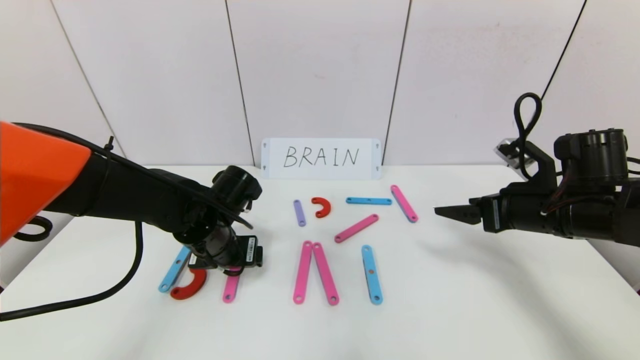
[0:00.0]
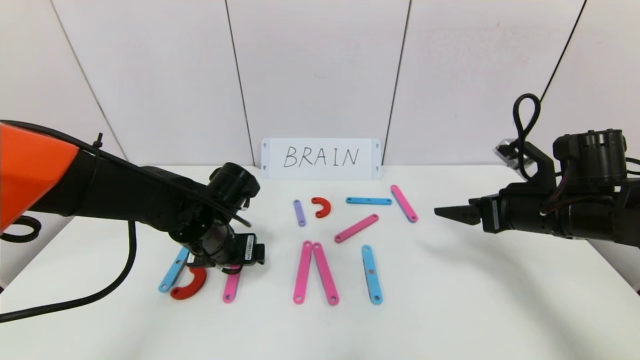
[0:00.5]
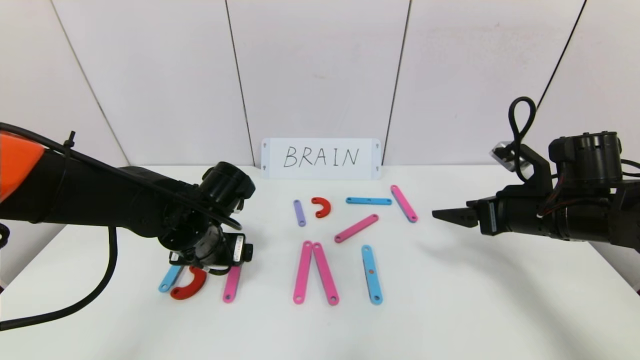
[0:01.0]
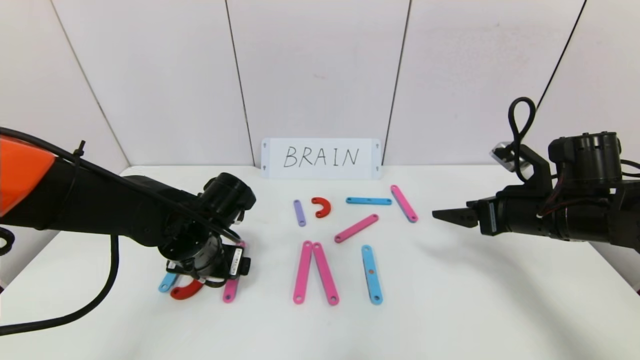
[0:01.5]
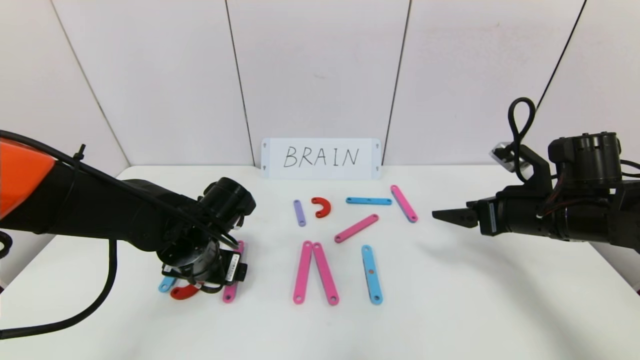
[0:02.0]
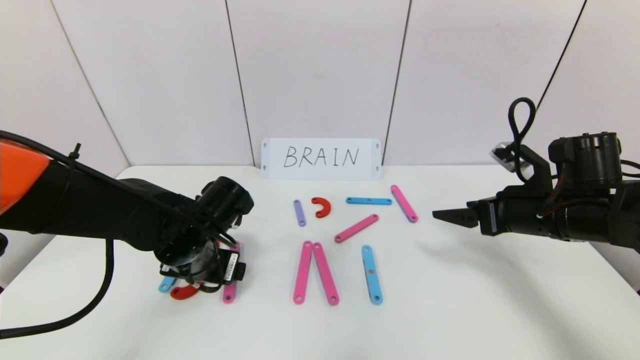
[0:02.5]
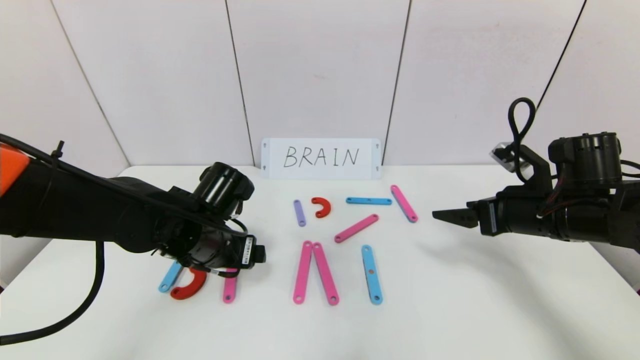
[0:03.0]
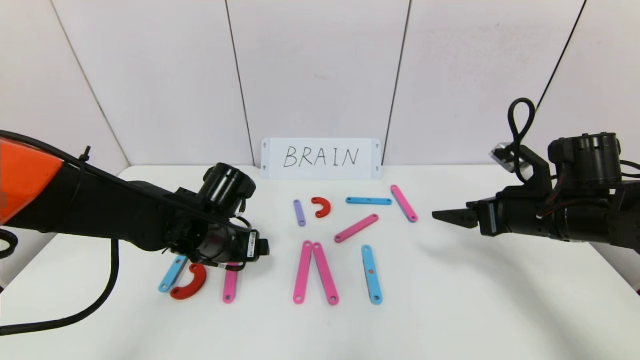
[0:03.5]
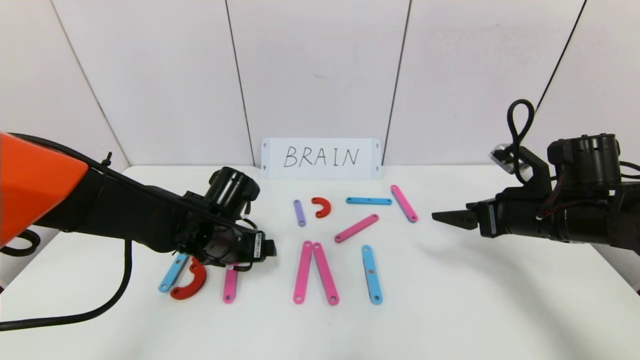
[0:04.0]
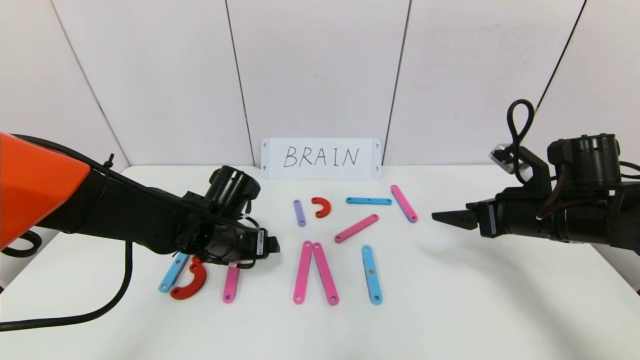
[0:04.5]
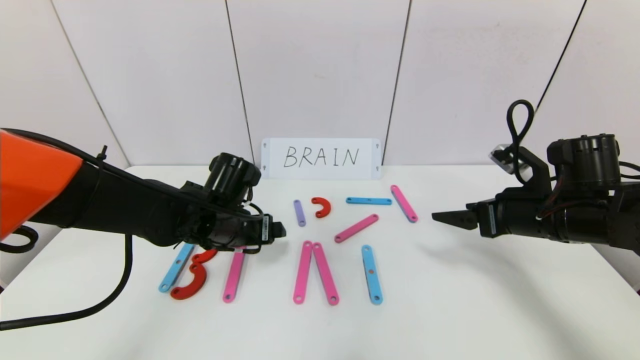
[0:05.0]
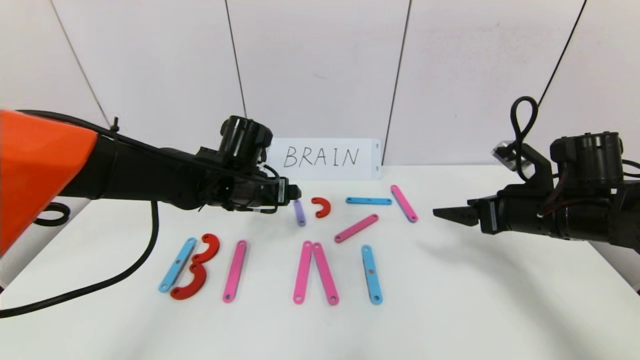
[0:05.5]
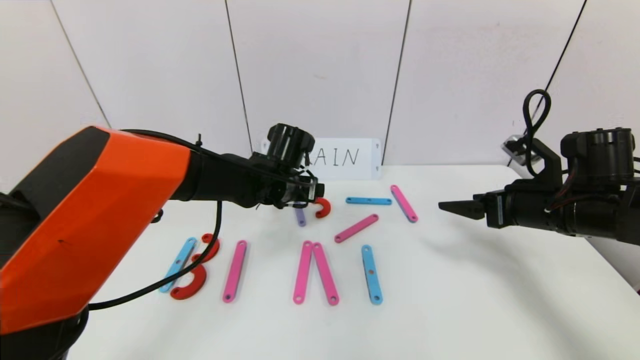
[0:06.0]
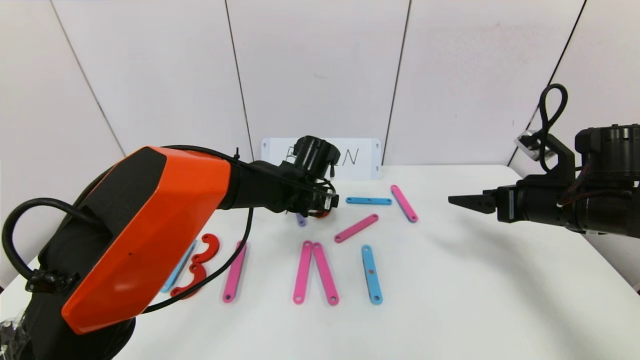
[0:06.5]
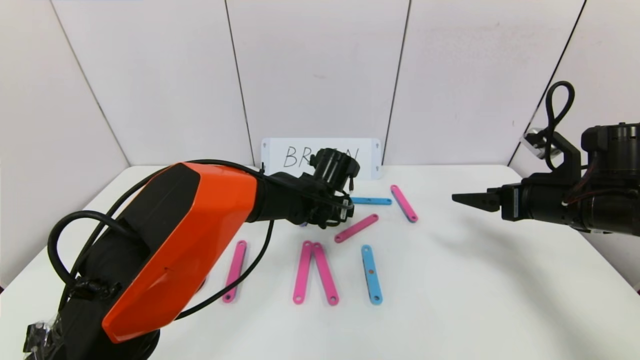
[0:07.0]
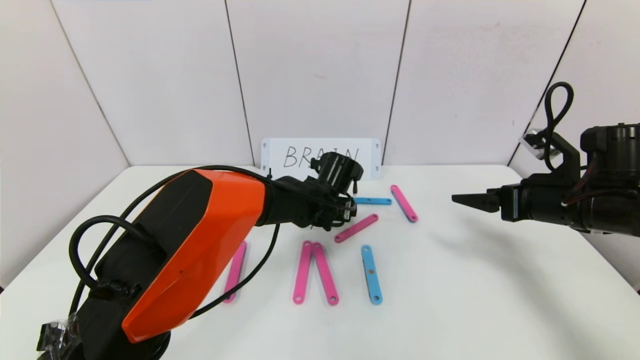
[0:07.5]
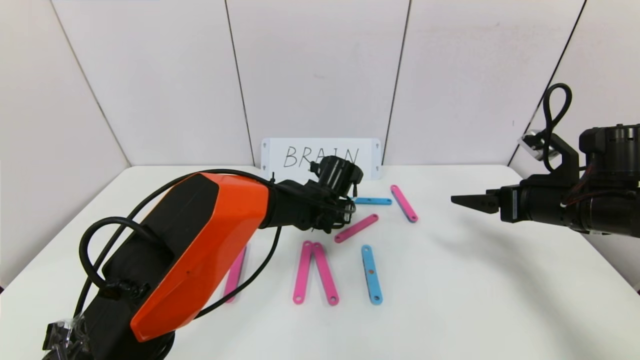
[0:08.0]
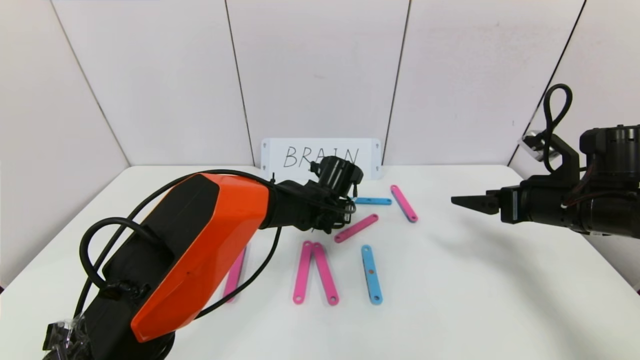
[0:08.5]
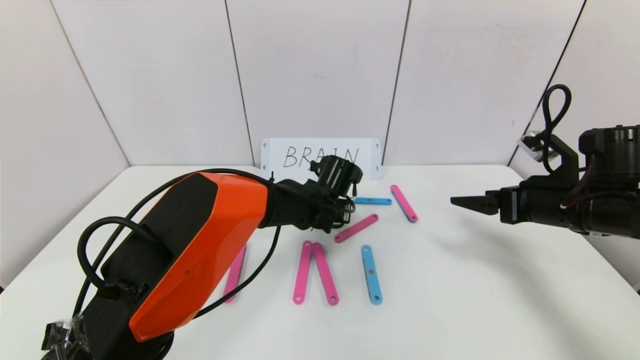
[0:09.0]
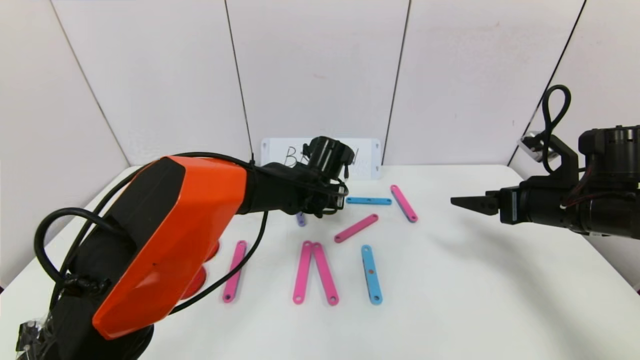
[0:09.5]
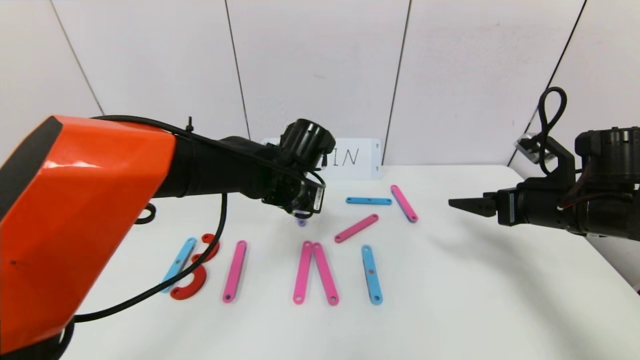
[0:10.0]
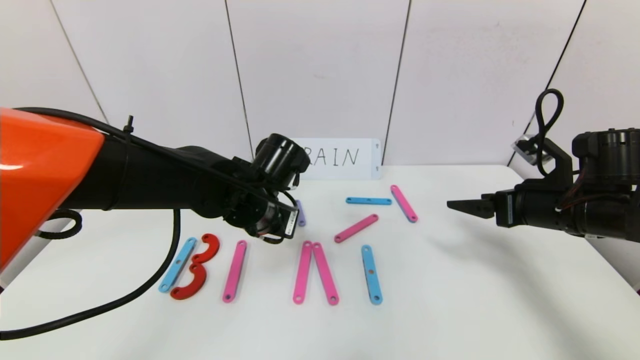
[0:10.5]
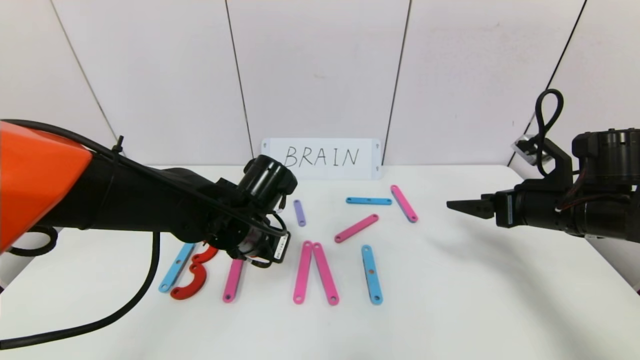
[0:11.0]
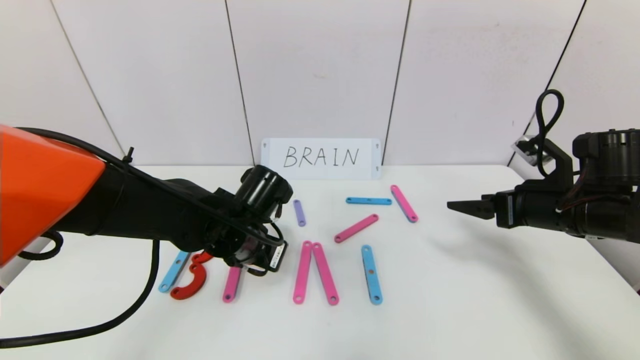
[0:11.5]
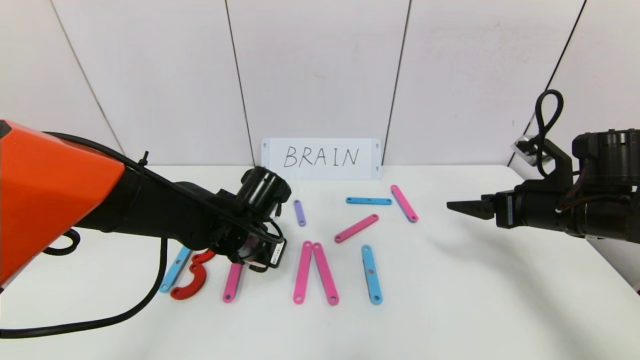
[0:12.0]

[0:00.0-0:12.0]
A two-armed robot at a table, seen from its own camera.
Task of the whole recording: rearrange the word baai as brain.
0:00.0 to 0:02.0: The grippers stay close to where they were, moving slightly.
0:04.0 to 0:06.0: The left gripper is displaced to the right and forward by approximately 15 cm.
0:06.0 to 0:08.0: The left gripper moves to the right and downward, some 10 cm.
0:08.0 to 0:10.0: The left gripper is displaced upward, to the left and backward by about 10 cm, and closes up.
0:10.0 to 0:12.0: The left gripper shifts approximately 10 cm to the left and downward.

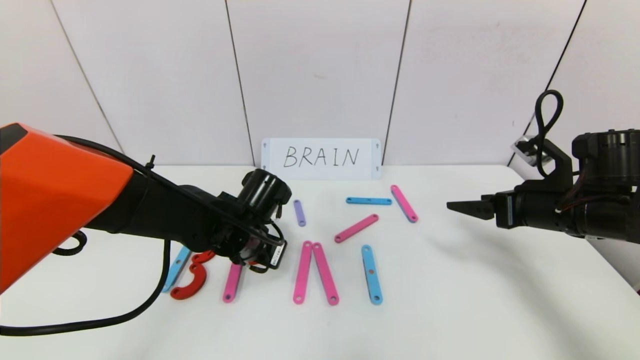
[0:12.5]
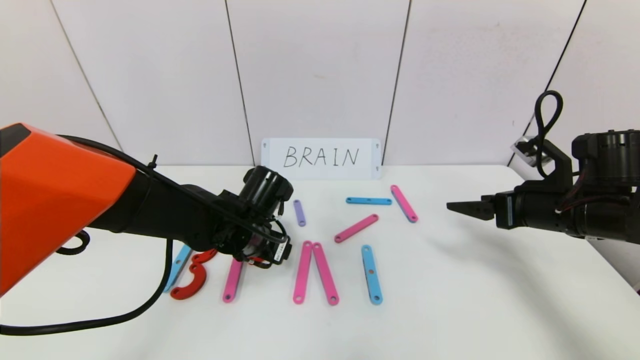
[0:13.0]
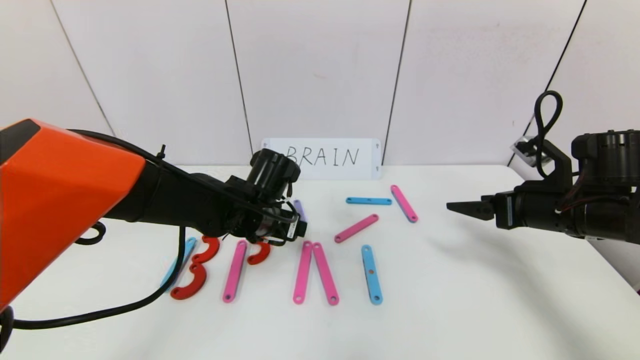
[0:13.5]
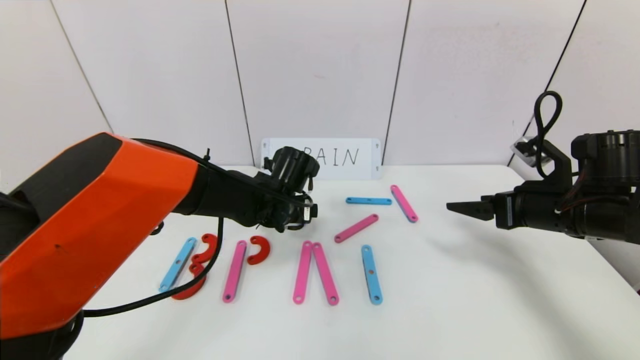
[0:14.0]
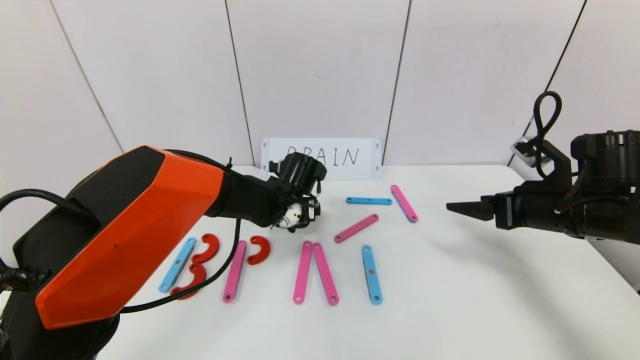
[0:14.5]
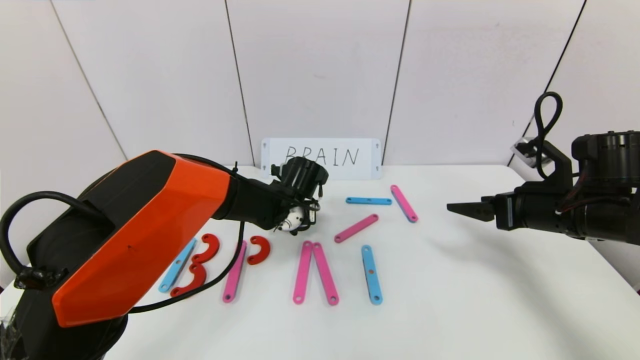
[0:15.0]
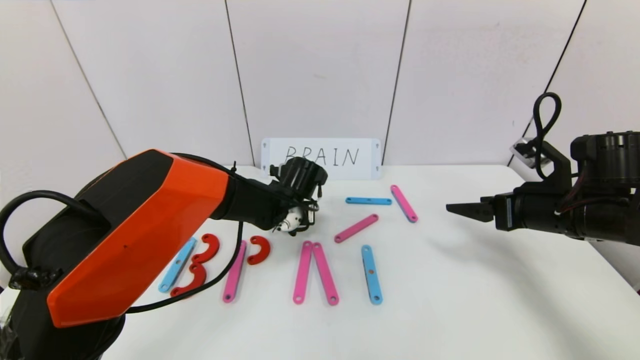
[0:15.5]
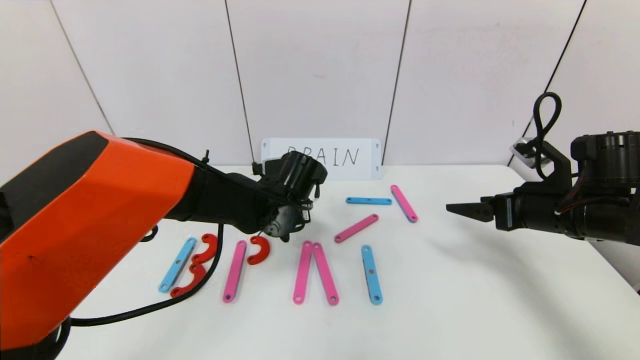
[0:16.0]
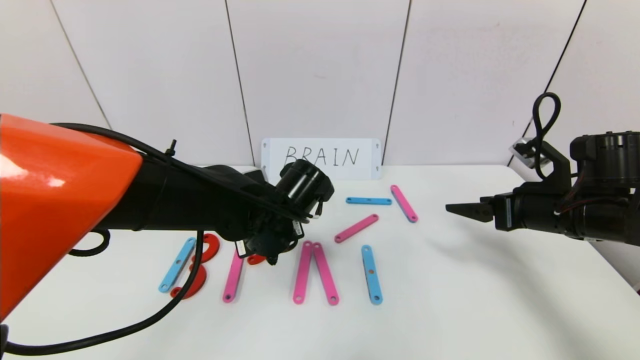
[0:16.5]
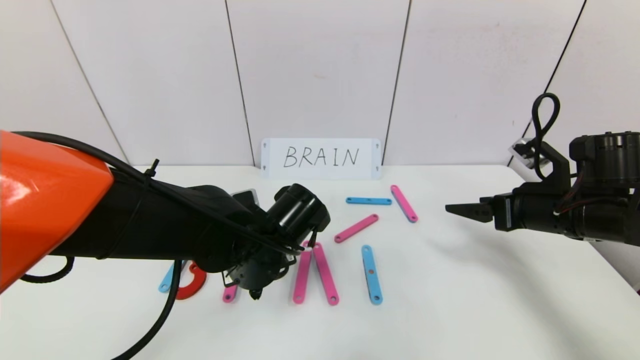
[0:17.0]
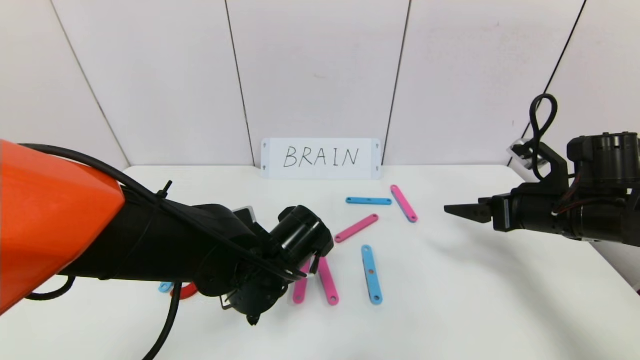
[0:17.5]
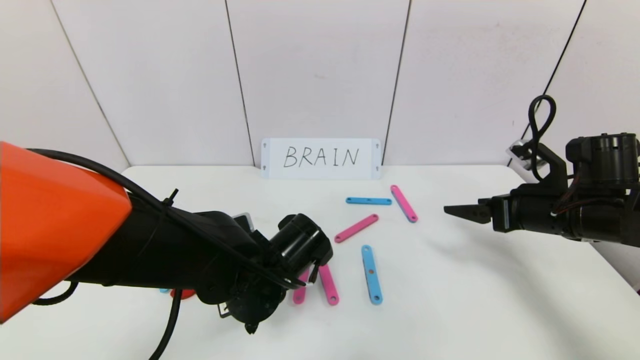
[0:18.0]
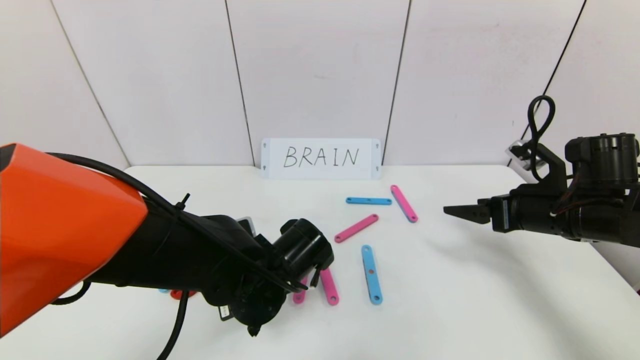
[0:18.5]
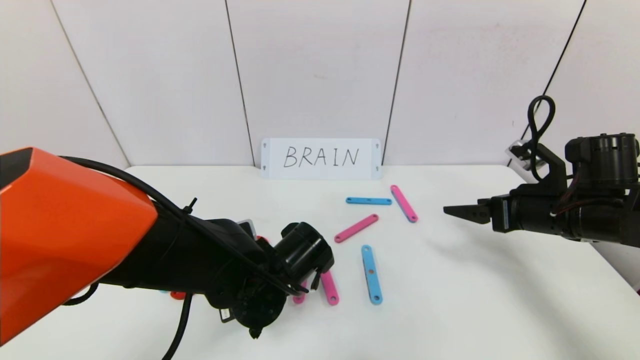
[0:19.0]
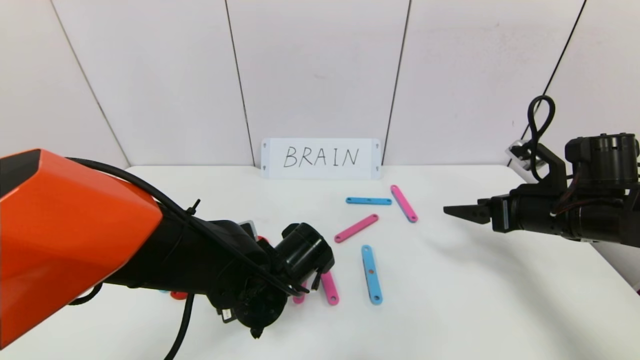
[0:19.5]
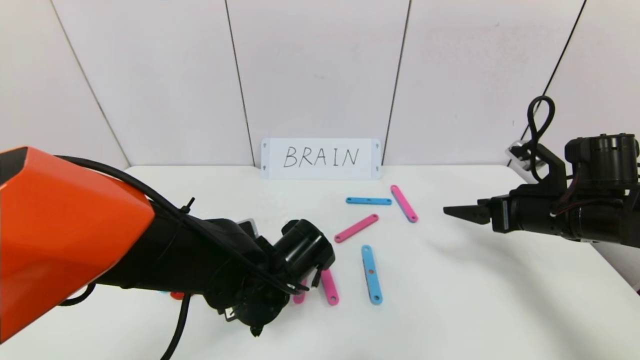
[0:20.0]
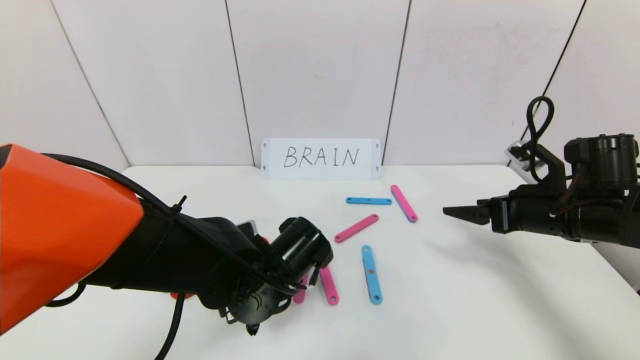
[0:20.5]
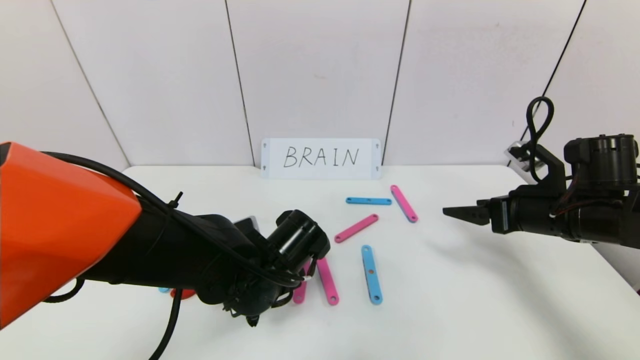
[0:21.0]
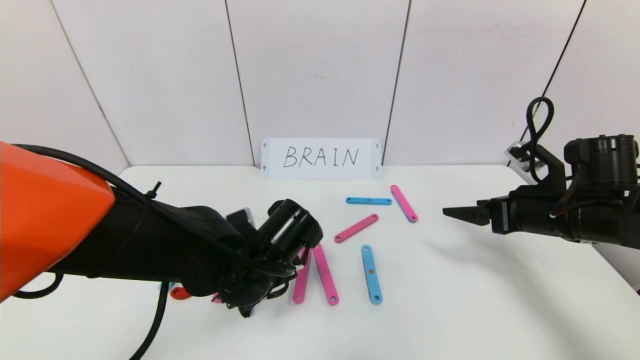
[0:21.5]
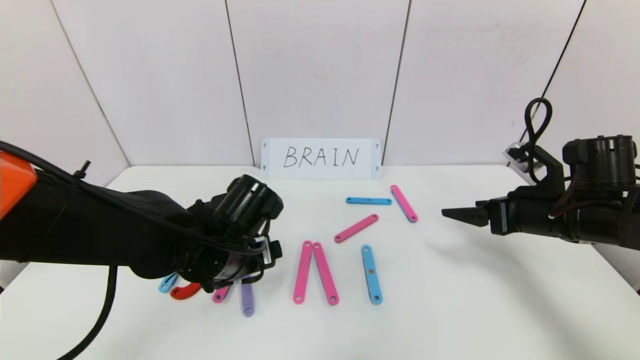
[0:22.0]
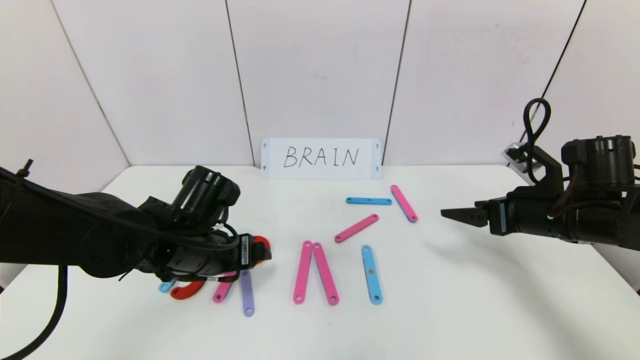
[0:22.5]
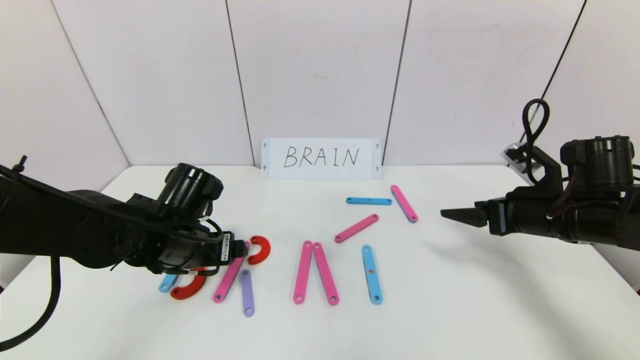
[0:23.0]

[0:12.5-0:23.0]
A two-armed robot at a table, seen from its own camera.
Task of the whole recording: rearrange the word baai as brain.
0:12.5 to 0:14.5: The left gripper shifts about 10 cm forward and to the right, and opens its fingers.
0:14.5 to 0:16.5: The left gripper shifts approximately 10 cm backward, and closes.
0:16.5 to 0:19.0: The left gripper is displaced downward and backward by about 5 cm.
0:19.0 to 0:21.0: The left gripper opens.
0:21.0 to 0:23.0: The left gripper heads to the left, covering about 10 cm.
